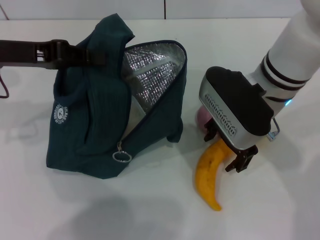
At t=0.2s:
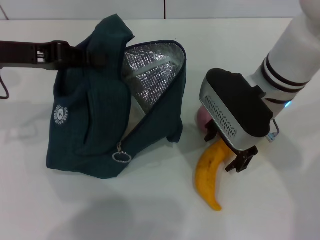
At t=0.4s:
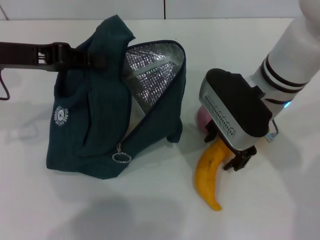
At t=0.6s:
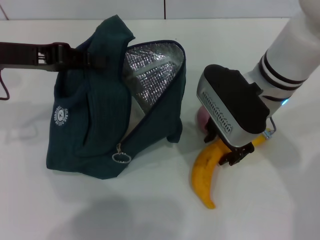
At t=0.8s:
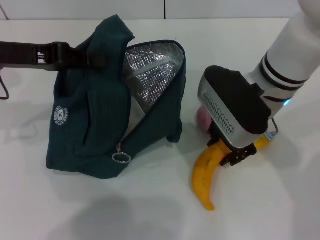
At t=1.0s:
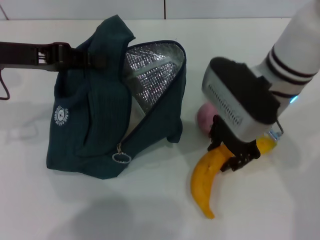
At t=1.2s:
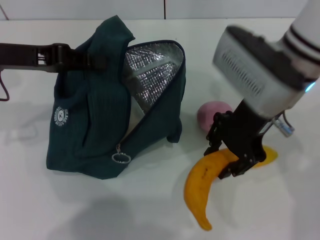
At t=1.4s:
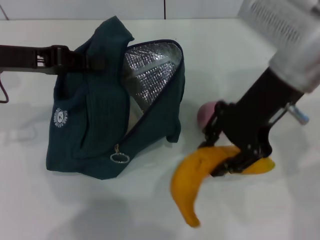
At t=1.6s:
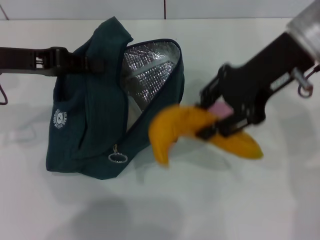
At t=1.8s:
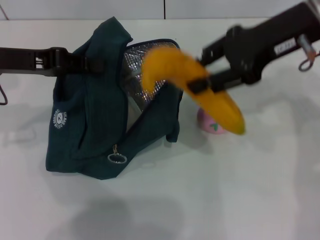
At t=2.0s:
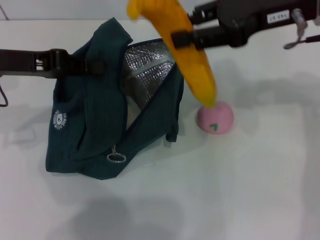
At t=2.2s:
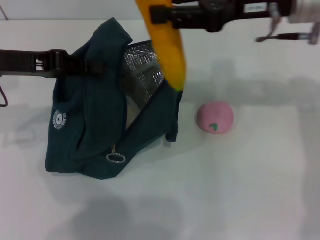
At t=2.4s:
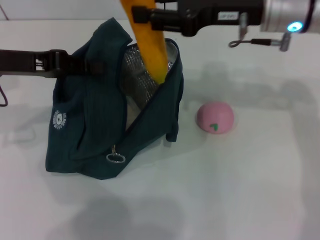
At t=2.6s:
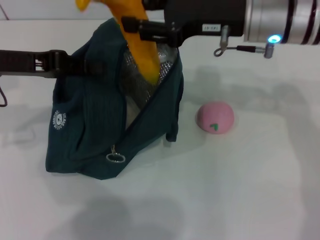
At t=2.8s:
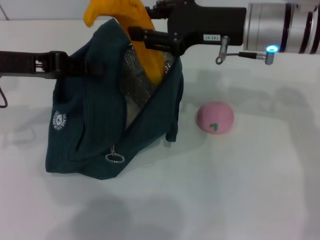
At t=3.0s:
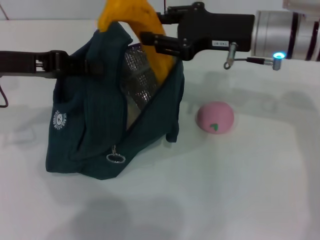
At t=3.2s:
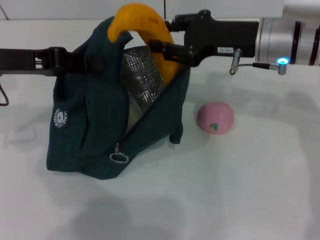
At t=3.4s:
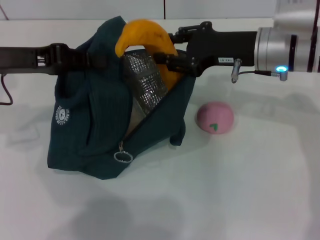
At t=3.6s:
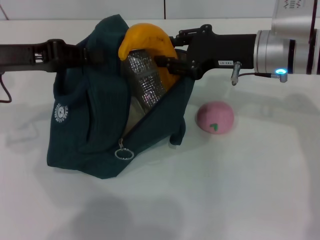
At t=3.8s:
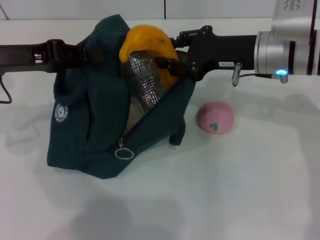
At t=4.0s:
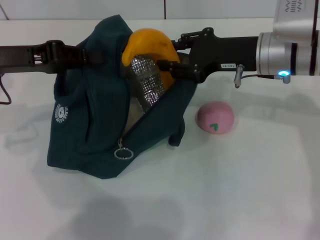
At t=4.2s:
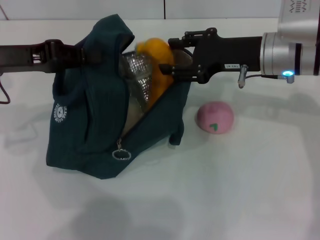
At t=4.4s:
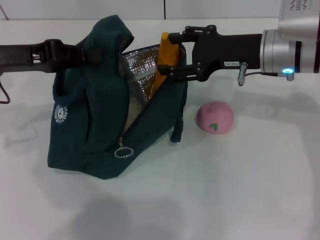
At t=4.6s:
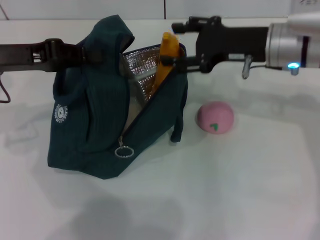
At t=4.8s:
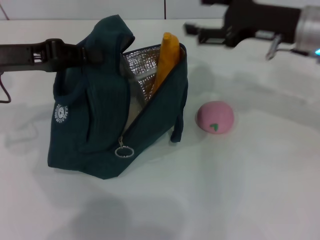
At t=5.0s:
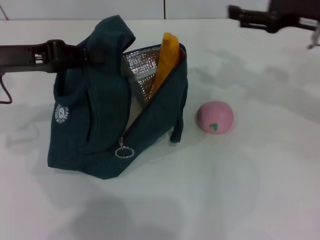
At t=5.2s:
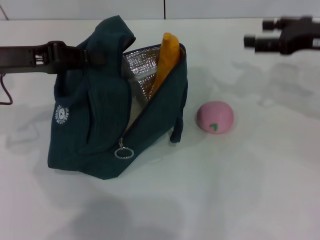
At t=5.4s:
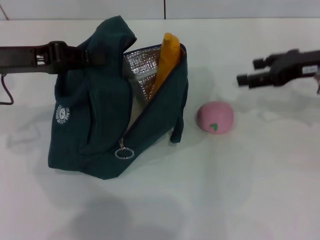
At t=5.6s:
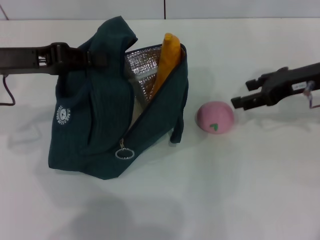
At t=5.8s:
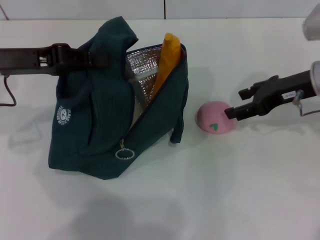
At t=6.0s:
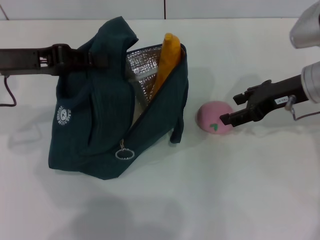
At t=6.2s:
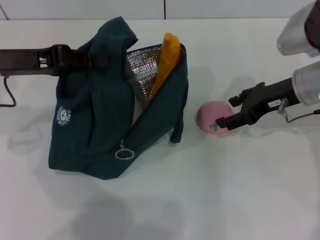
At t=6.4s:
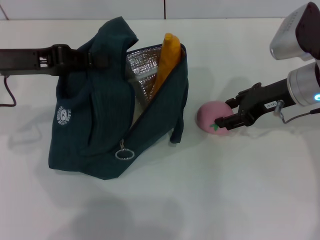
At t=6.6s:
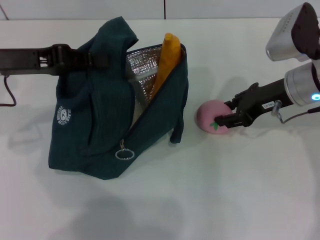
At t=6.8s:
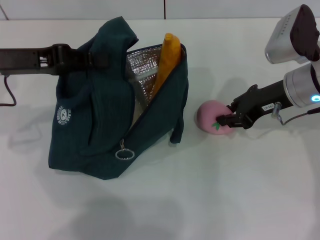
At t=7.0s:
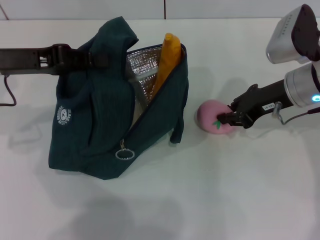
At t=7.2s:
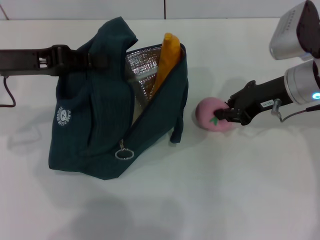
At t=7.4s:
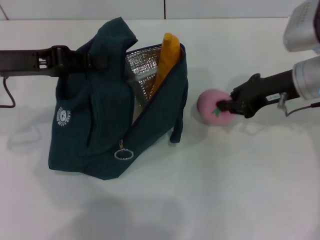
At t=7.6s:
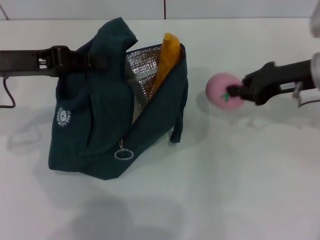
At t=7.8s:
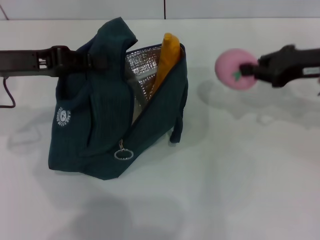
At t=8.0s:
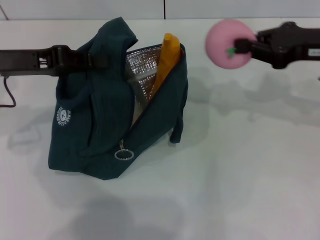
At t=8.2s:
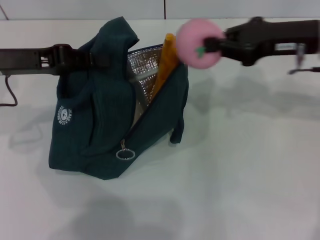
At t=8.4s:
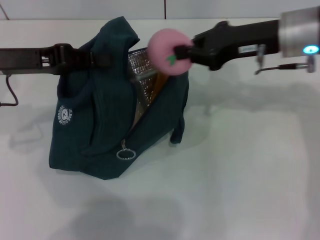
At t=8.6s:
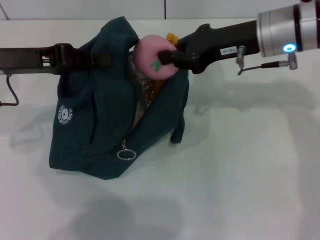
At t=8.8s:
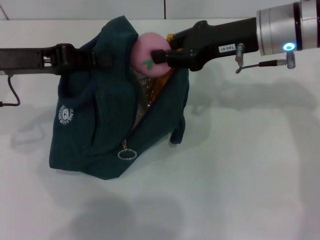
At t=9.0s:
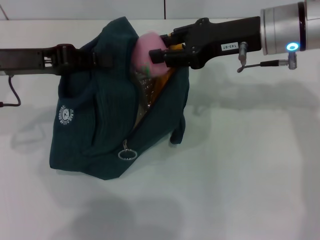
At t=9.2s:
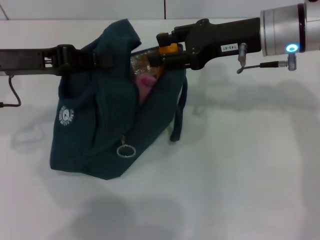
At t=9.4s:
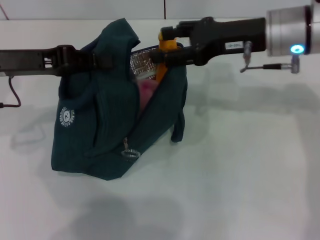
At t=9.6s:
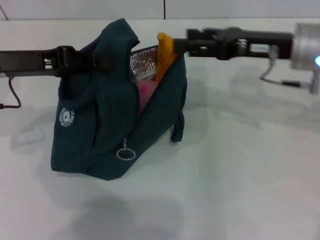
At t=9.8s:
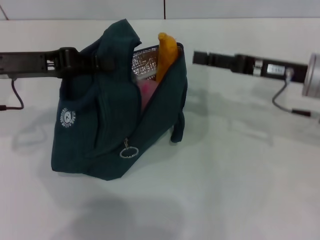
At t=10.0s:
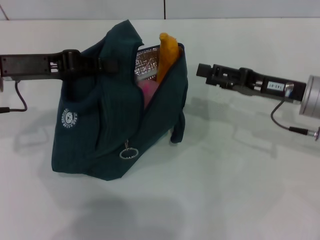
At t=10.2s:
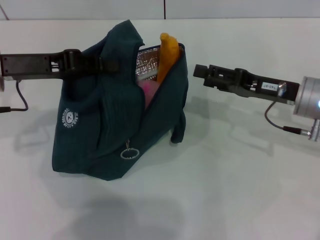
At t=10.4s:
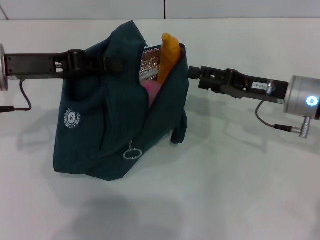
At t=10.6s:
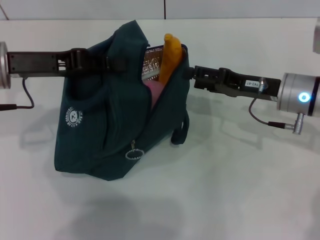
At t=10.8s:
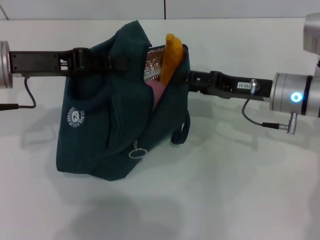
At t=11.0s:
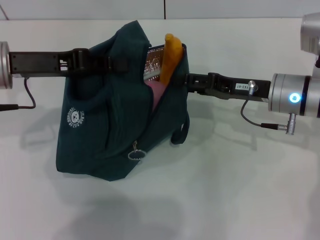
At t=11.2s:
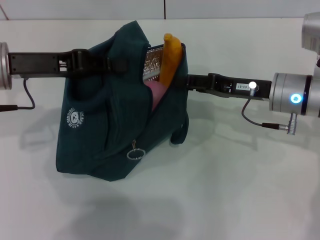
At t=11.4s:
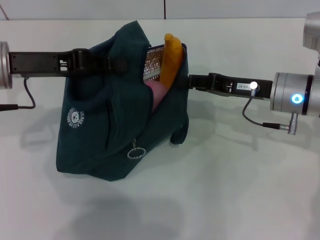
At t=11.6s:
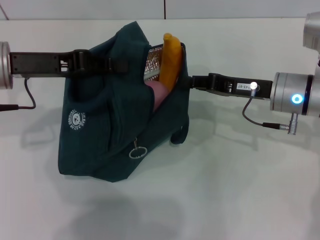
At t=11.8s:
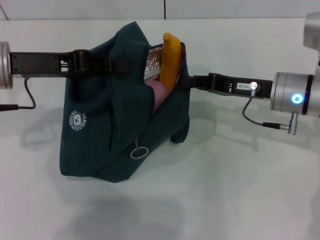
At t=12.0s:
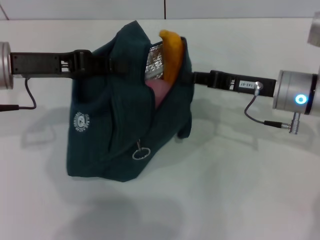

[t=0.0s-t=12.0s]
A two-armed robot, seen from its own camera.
Step, t=0.8s to t=4.6s: Put the banana into the lunch bag with your right hand.
Step, t=4.8s to t=6.6s: Grab the peach with your right hand.
t=0.0s to t=1.6s: The right gripper travels upward and to the right by about 10 cm, and closes its fingers.
t=1.6s to t=3.0s: The right gripper is displaced downward by about 10 cm.
t=3.0s to t=4.4s: The grippers move only a little.
t=4.4s to t=6.0s: The right gripper travels to the right by approximately 5 cm.
t=6.0s to t=7.6s: The right gripper closes up.
t=7.6s to t=9.0s: The right gripper travels to the left by roughly 10 cm.
t=9.0s to t=10.4s: The right gripper goes some 10 cm downward and to the right, and opens its fingers.
t=10.4s to t=12.0s: The right gripper closes its fingers.

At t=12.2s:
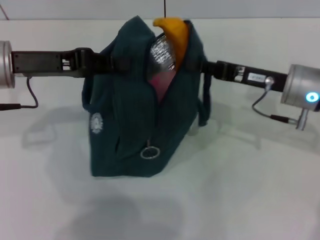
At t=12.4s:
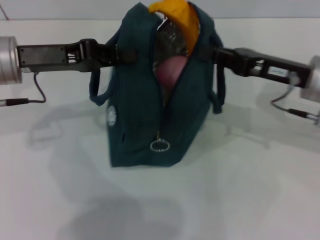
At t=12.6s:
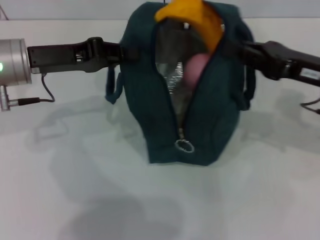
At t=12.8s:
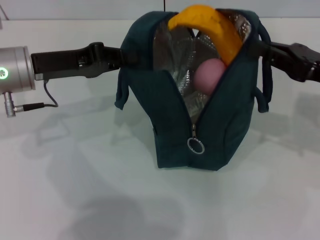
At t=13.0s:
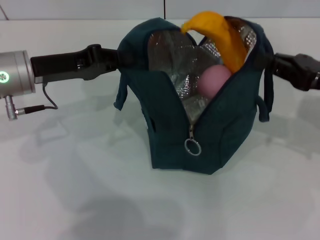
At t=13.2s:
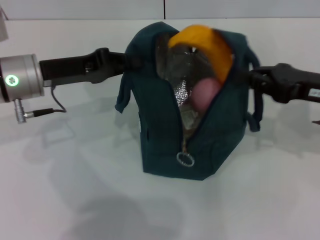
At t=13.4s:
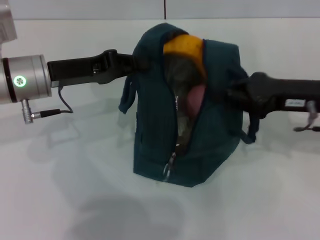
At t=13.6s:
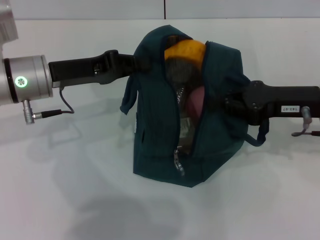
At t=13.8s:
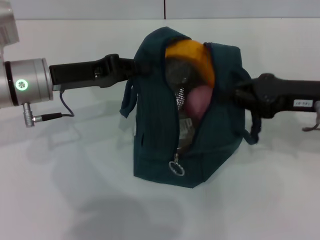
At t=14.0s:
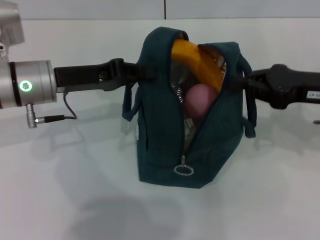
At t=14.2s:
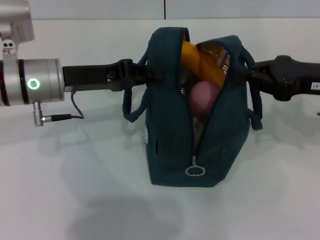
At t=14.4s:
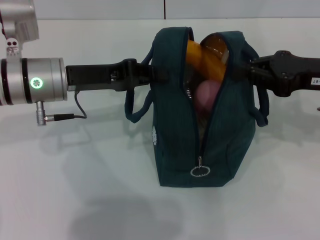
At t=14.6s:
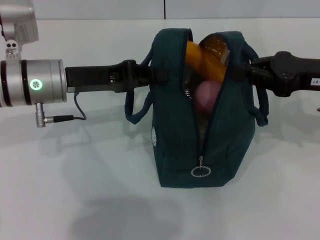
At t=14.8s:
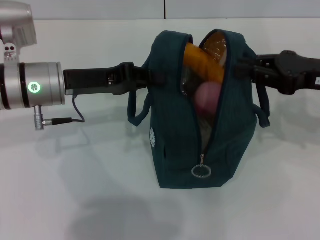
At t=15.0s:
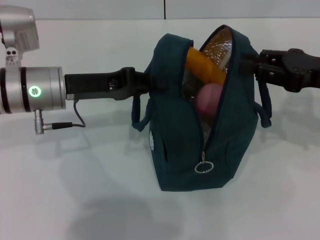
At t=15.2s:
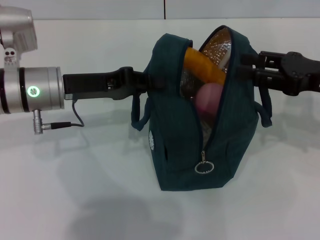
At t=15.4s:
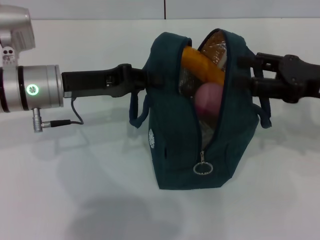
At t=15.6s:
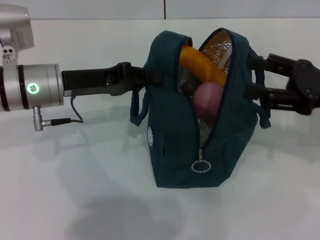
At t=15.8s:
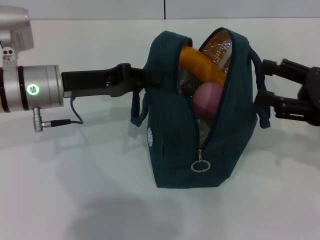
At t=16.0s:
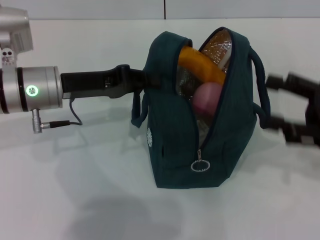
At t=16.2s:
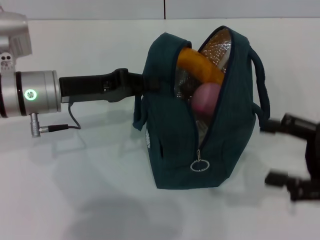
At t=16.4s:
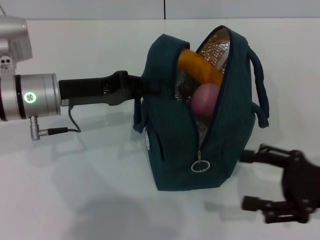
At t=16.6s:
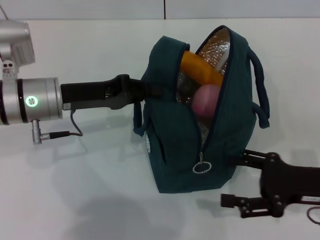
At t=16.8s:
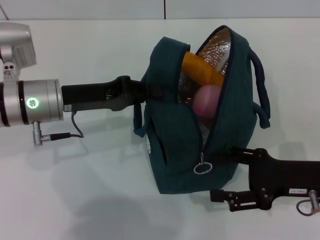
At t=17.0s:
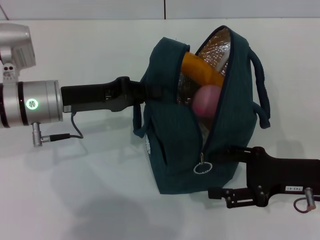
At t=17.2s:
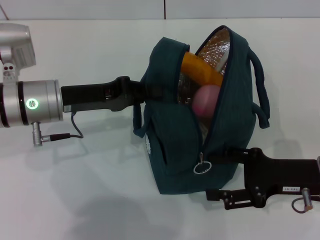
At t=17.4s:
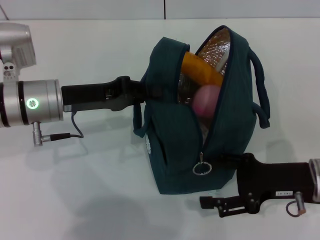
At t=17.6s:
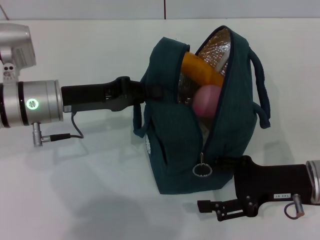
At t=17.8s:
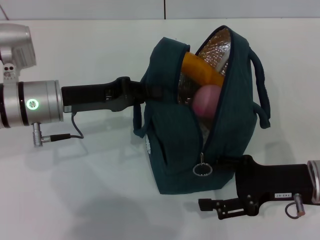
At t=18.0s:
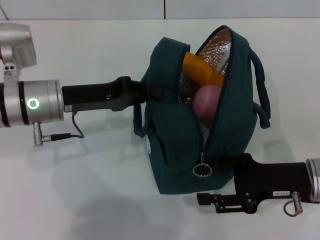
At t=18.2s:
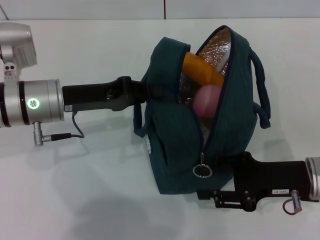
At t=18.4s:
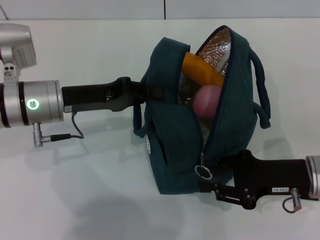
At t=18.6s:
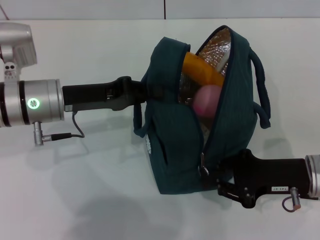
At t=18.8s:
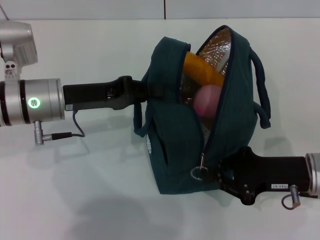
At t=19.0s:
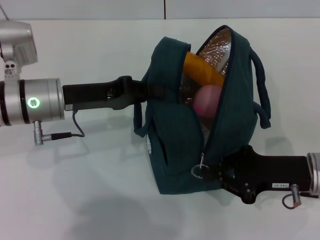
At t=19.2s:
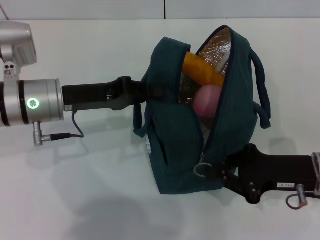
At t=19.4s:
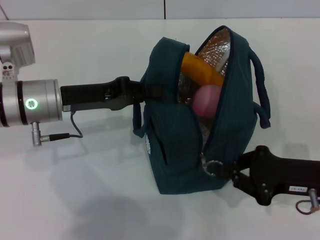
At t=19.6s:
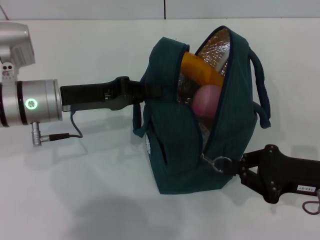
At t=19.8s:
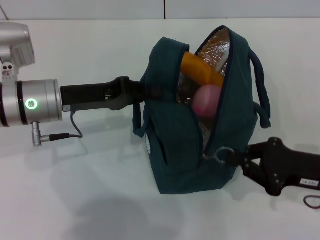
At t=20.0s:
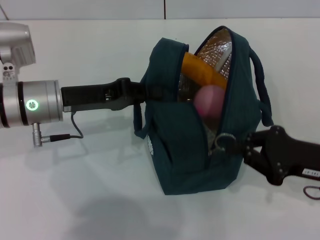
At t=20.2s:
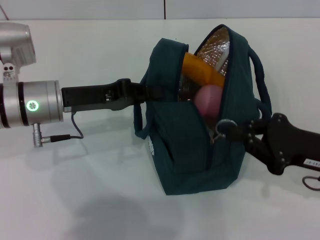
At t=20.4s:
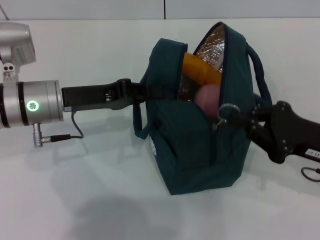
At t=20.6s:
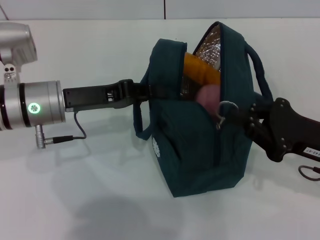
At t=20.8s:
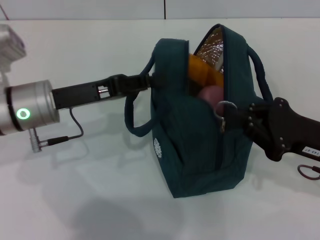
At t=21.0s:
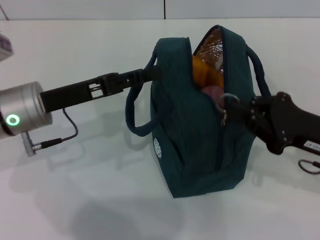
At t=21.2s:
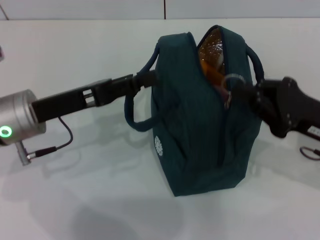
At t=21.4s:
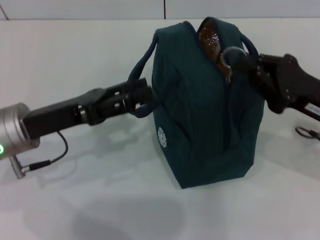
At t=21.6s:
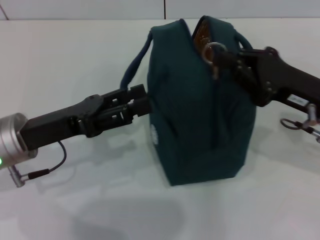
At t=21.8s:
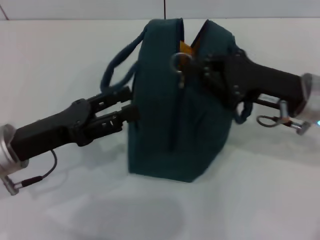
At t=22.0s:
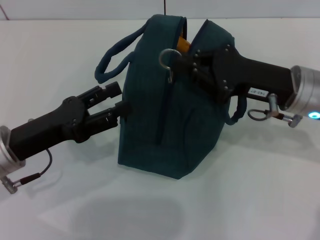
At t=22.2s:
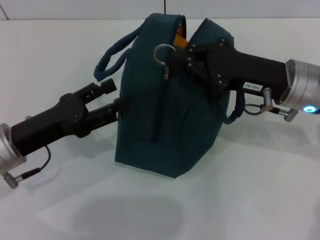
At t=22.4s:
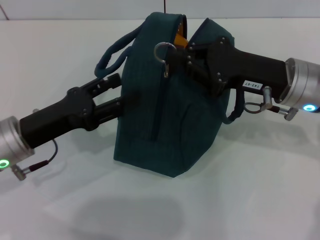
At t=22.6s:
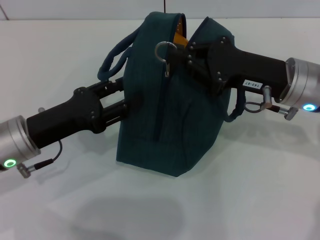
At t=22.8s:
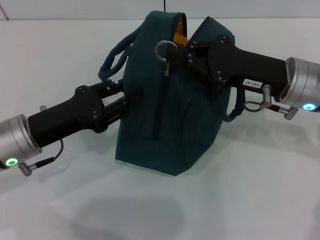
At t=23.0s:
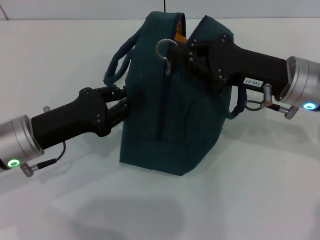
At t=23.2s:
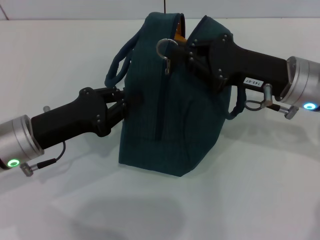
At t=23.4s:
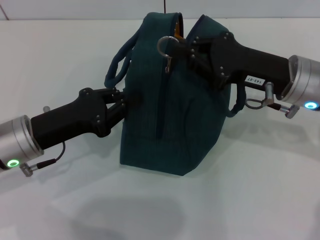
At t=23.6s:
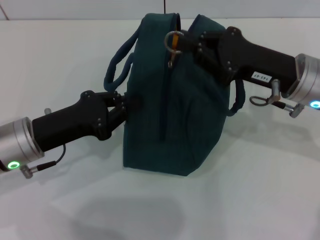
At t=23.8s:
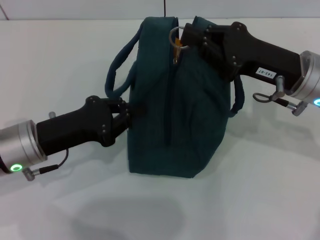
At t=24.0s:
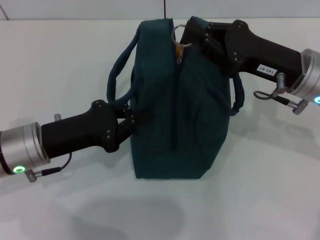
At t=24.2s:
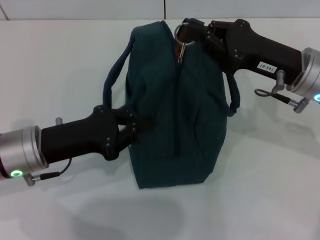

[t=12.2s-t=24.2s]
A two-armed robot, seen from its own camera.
Step, t=12.2s to t=15.4s: Hold the lunch bag with your right hand.
Step, t=15.6s to t=21.0s: Hold the lunch bag with your left hand.
t=12.2s to t=13.8s: The left gripper ends up some 5 cm from where it was.
t=13.8s to t=15.2s: The right gripper opens up.
t=15.2s to t=16.6s: The right gripper moves backward and downward, some 10 cm, and opens up.
t=16.6s to t=18.2s: The grippers move only a little.
t=18.2s to t=19.8s: The right gripper closes.
t=19.8s to t=21.2s: The left gripper opens its fingers.
t=21.2s to t=22.6s: The right gripper moves to the left and forward, some 10 cm. Meanwhile the left gripper opens its fingers.
t=22.6s to t=24.2s: The left gripper closes up.
